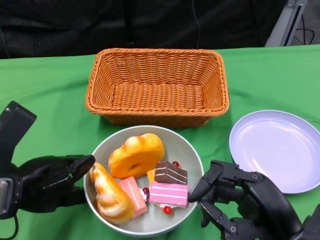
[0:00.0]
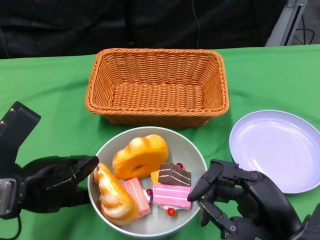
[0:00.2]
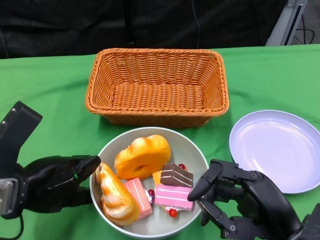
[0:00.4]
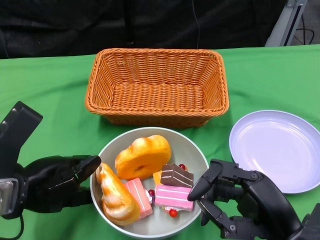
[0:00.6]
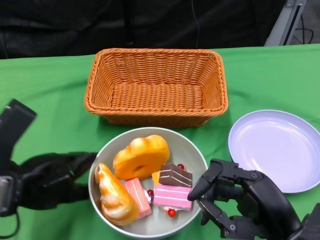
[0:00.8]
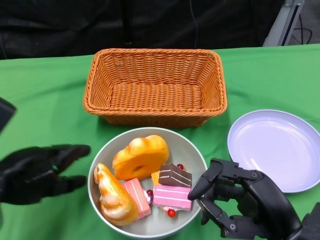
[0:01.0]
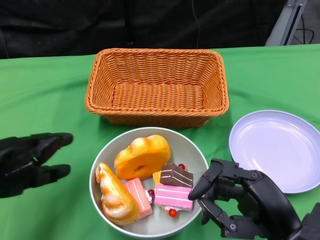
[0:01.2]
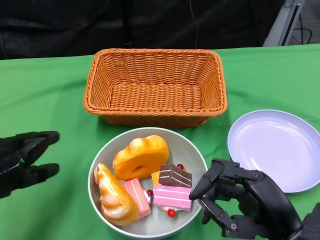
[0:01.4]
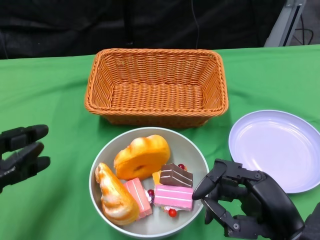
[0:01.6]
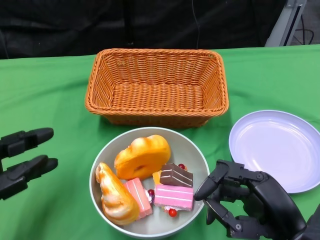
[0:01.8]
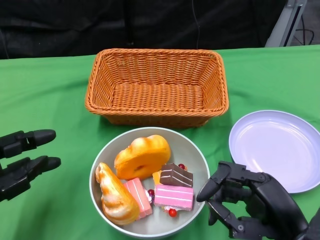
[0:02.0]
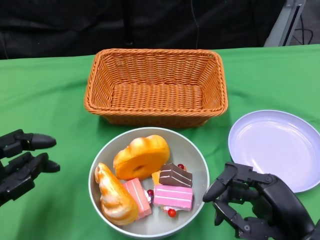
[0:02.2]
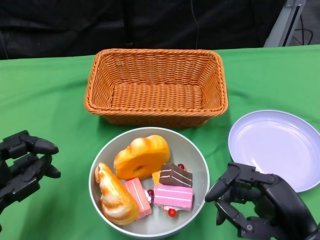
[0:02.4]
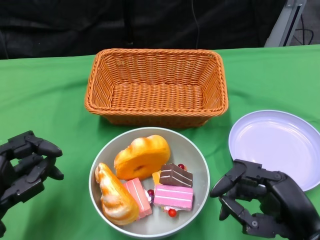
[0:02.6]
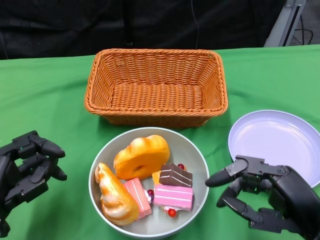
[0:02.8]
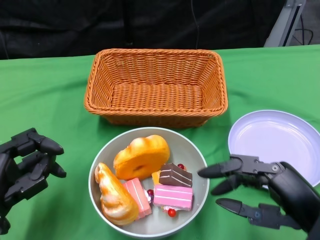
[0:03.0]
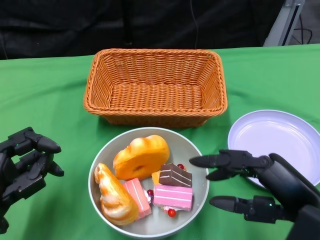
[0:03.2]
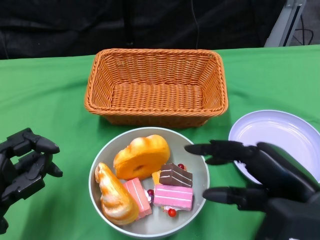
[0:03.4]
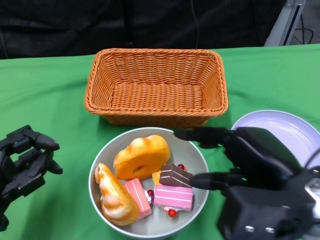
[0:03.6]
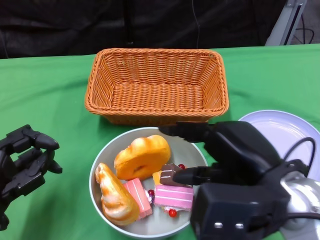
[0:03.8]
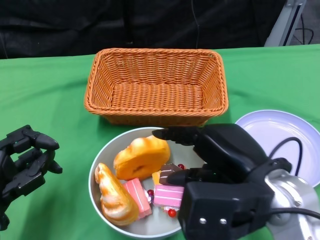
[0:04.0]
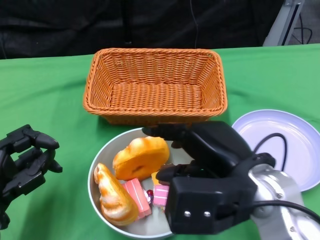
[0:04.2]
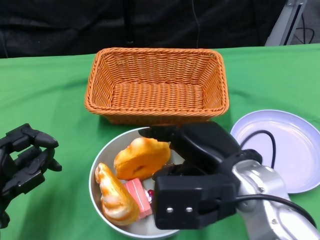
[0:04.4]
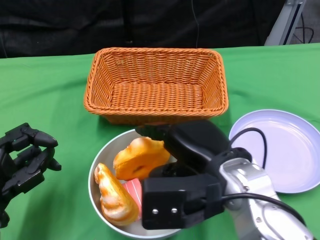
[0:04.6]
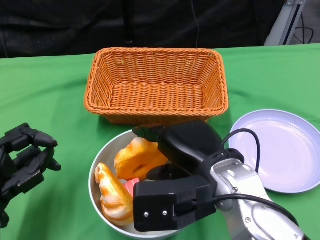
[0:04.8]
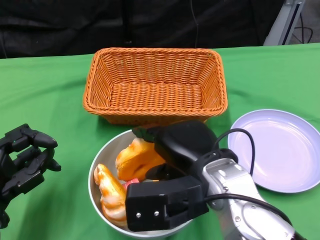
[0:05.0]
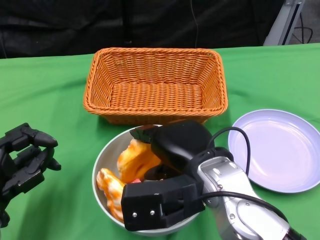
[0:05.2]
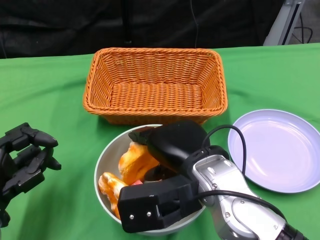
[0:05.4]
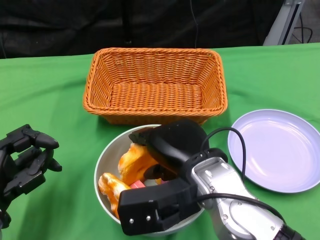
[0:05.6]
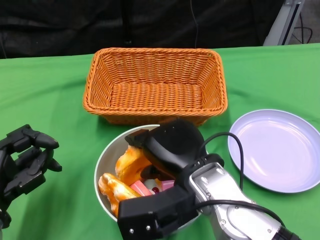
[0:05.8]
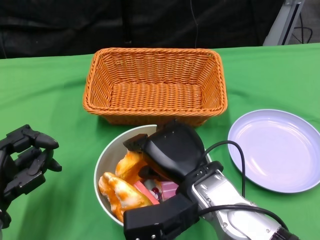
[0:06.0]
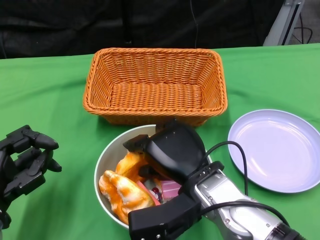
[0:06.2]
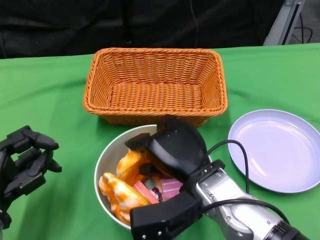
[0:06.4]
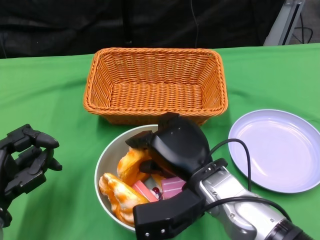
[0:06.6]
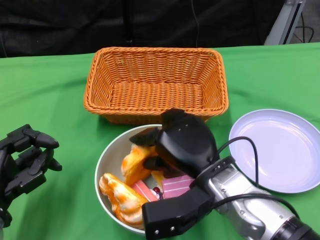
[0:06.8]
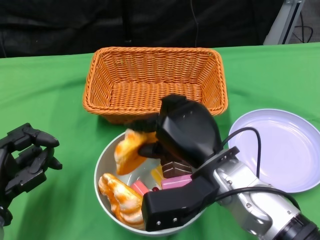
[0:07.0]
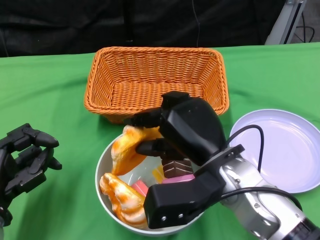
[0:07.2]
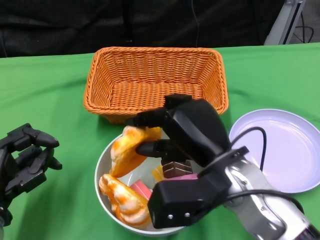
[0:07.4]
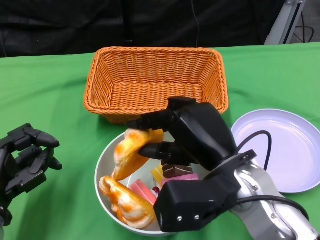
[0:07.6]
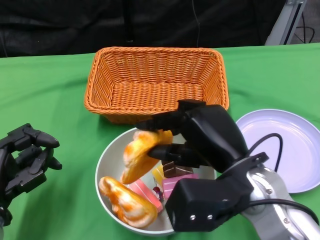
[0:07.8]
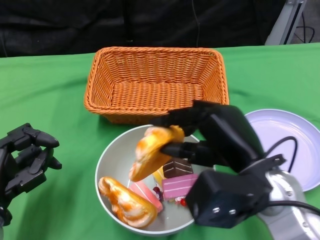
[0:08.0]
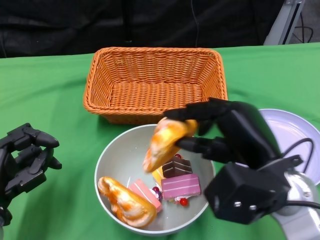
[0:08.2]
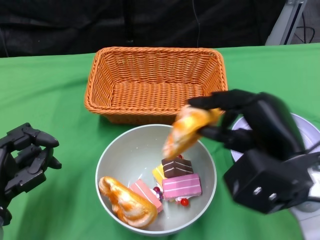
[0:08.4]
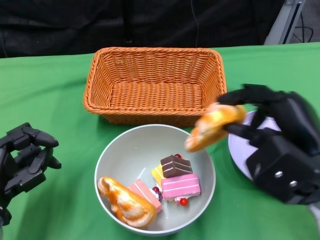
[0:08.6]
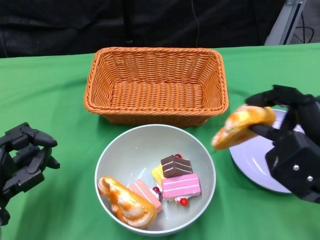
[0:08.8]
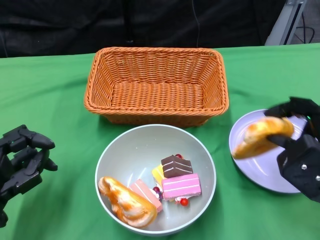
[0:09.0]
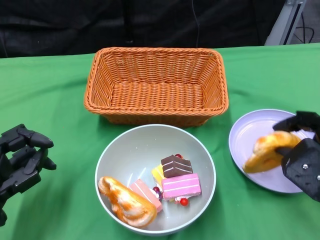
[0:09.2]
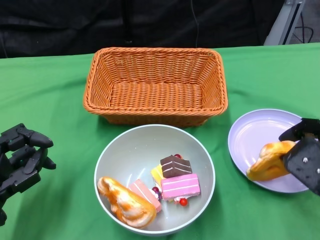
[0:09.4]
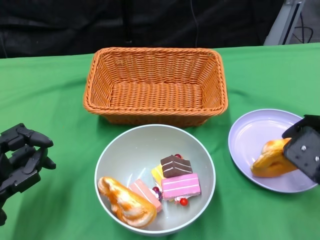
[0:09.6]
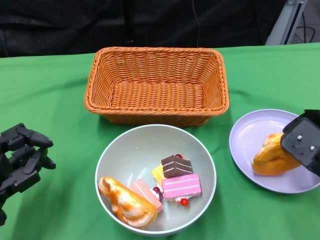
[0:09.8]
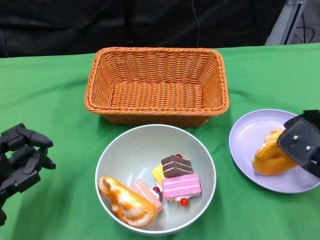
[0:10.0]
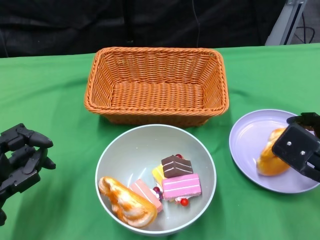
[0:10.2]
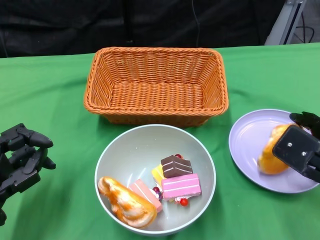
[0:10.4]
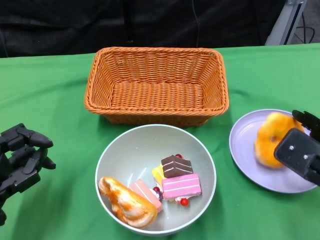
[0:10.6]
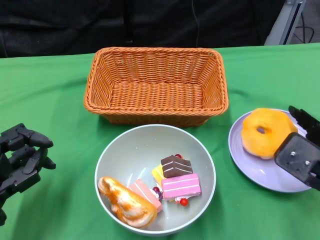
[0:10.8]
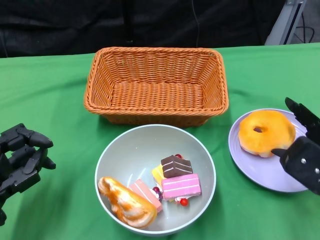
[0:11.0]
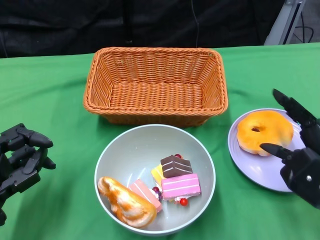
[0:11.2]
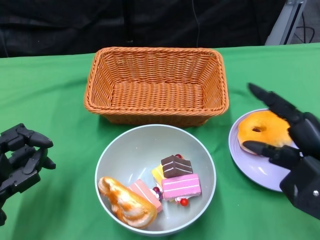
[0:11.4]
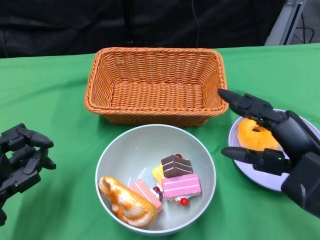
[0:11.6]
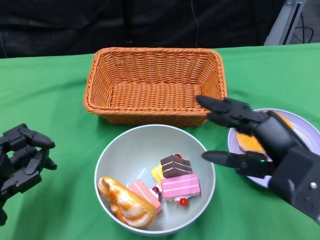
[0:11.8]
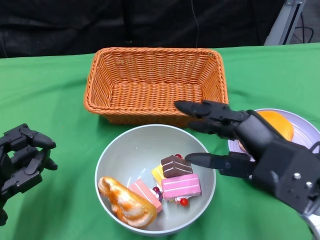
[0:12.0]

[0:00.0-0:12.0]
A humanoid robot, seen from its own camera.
0:00.0 to 0:01.6: The left hand shifts approximately 5 cm to the left.
0:01.6 to 0:03.0: The left hand moves downward, some 5 cm.
0:03.0 to 0:04.4: The right hand travels to the left and forward by some 15 cm.
0:04.4 to 0:06.0: The right hand is displaced to the left by some 5 cm.
0:06.0 to 0:07.6: The right hand changes place by about 5 cm.
0:07.6 to 0:09.0: The right hand travels to the right by approximately 15 cm.
0:10.4 to 0:12.0: The right hand heads to the left and upward, covering about 10 cm.

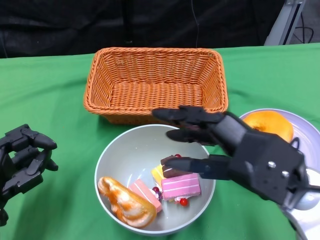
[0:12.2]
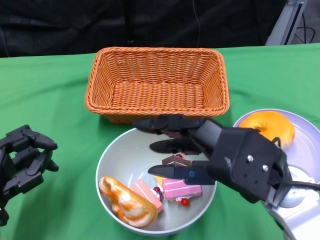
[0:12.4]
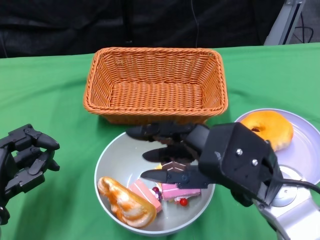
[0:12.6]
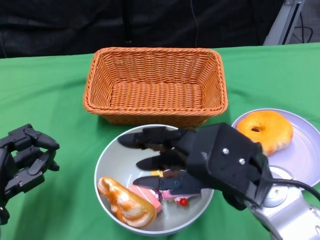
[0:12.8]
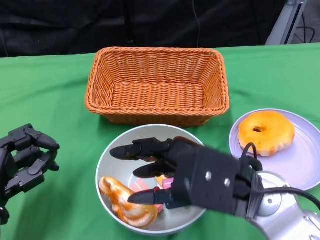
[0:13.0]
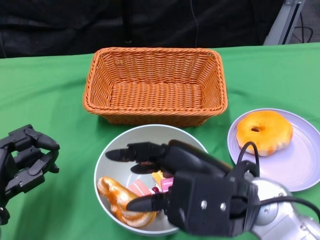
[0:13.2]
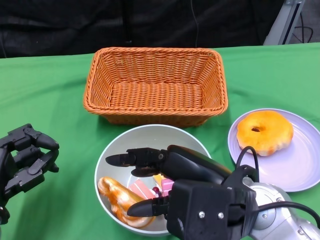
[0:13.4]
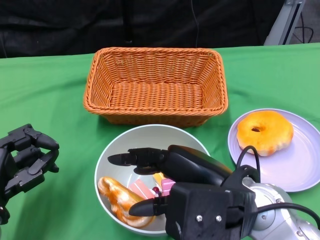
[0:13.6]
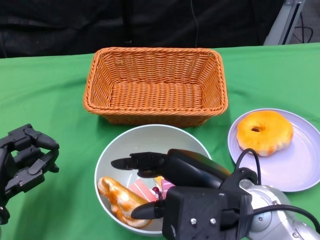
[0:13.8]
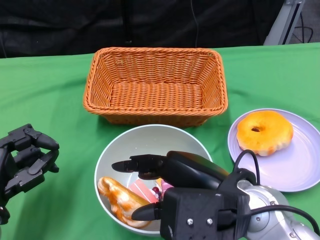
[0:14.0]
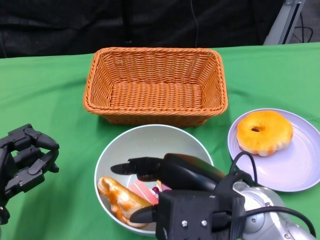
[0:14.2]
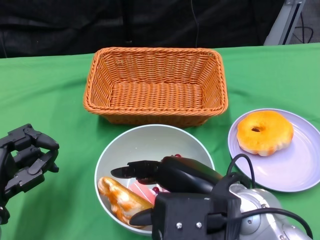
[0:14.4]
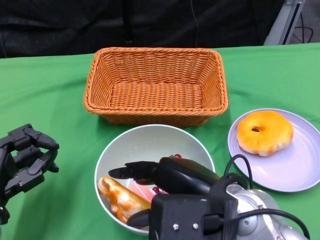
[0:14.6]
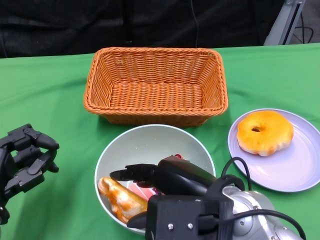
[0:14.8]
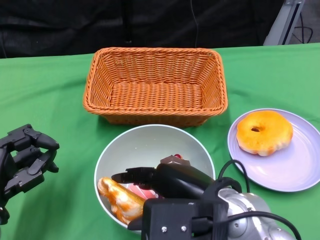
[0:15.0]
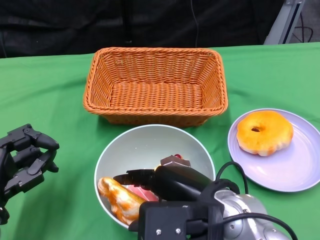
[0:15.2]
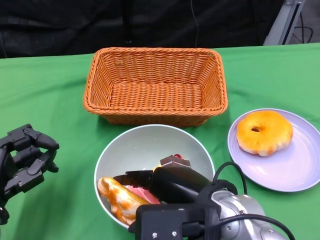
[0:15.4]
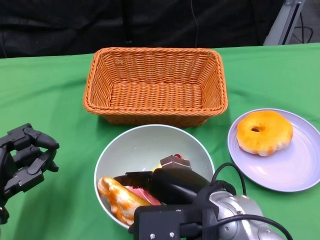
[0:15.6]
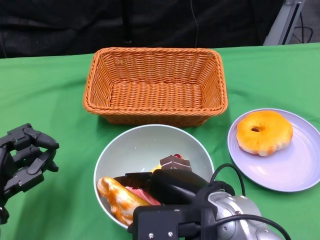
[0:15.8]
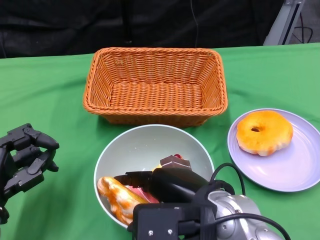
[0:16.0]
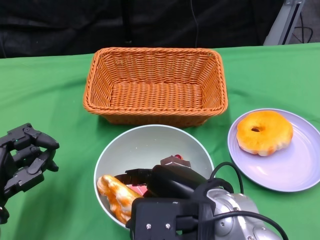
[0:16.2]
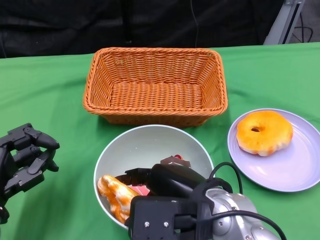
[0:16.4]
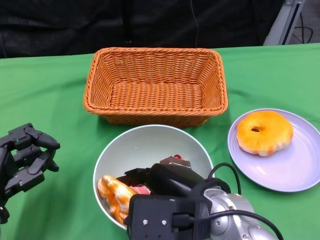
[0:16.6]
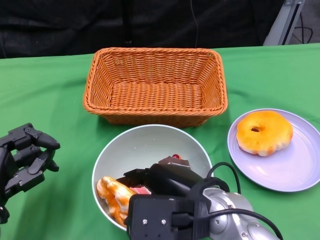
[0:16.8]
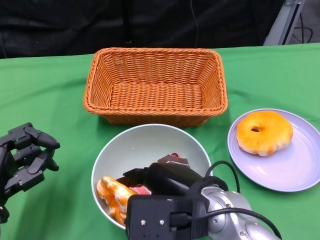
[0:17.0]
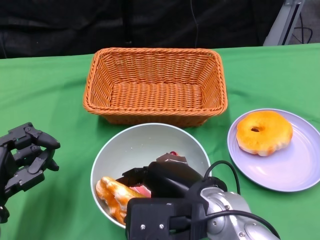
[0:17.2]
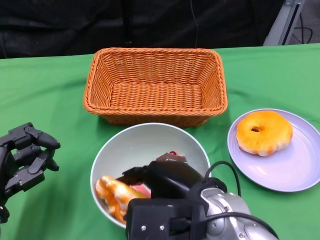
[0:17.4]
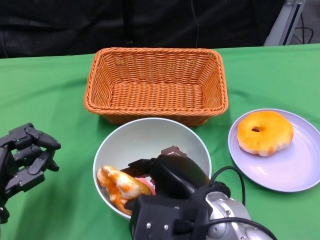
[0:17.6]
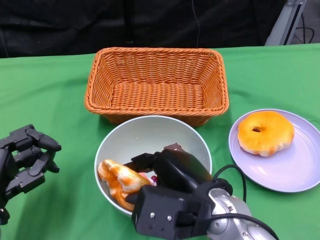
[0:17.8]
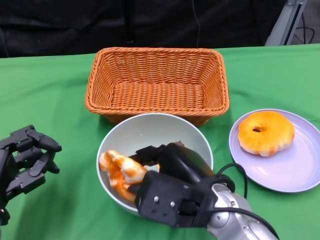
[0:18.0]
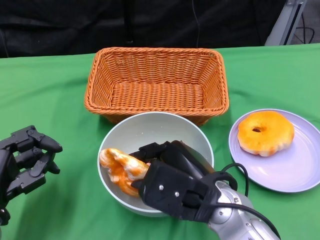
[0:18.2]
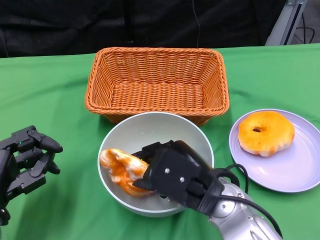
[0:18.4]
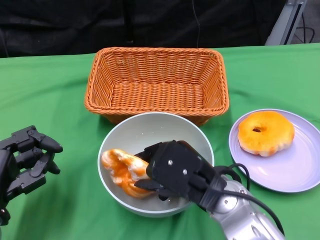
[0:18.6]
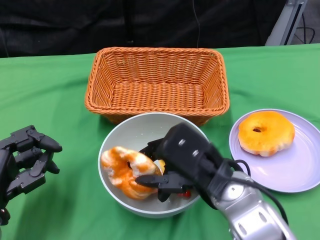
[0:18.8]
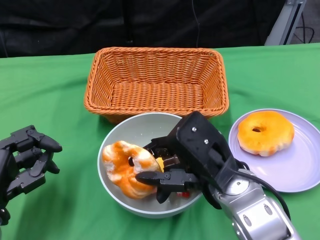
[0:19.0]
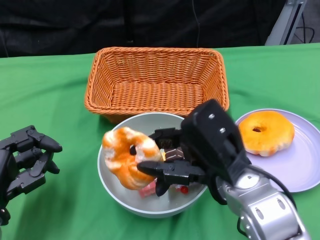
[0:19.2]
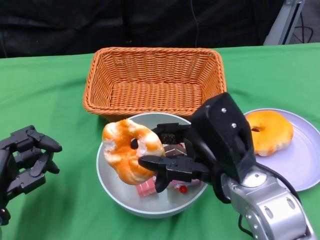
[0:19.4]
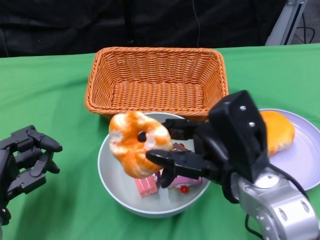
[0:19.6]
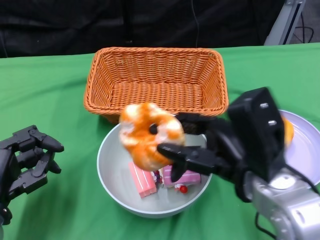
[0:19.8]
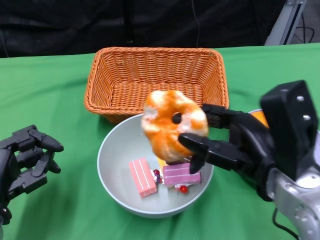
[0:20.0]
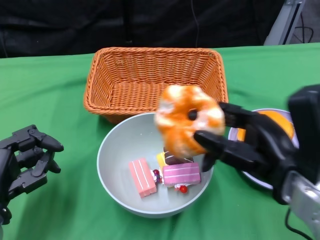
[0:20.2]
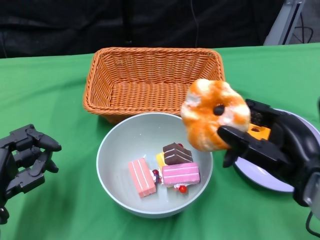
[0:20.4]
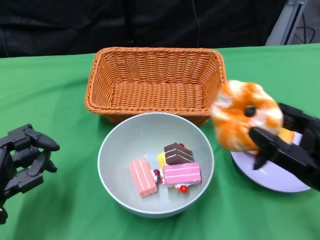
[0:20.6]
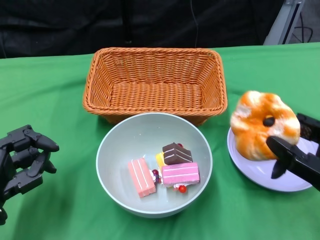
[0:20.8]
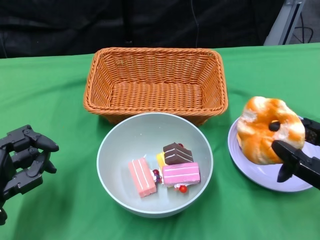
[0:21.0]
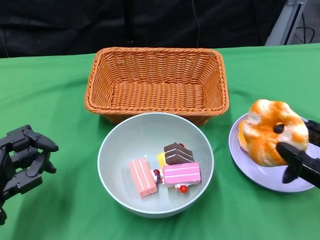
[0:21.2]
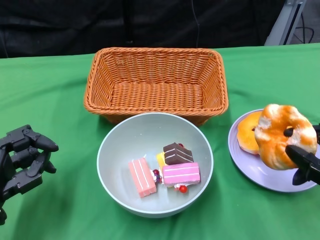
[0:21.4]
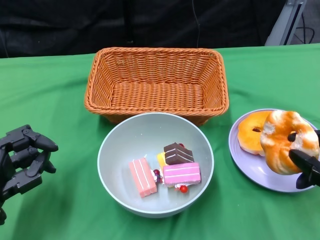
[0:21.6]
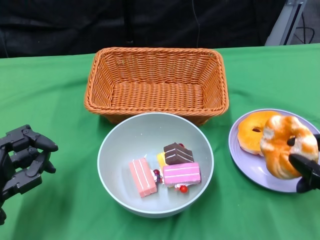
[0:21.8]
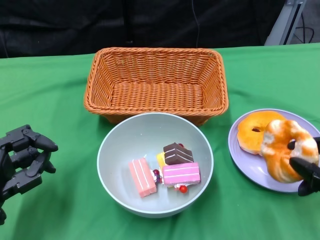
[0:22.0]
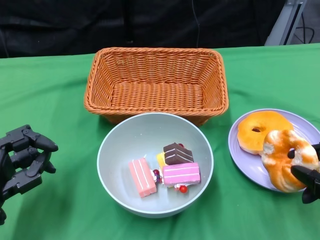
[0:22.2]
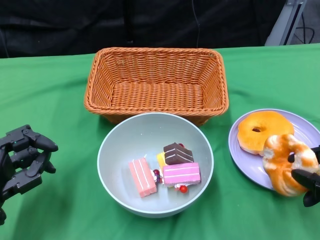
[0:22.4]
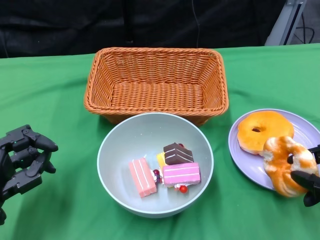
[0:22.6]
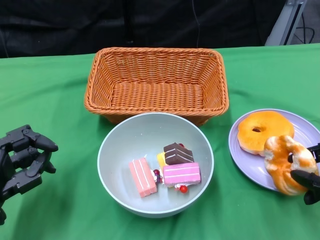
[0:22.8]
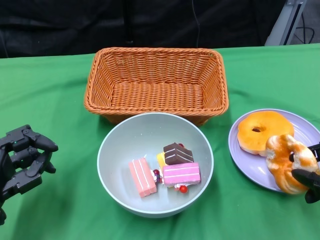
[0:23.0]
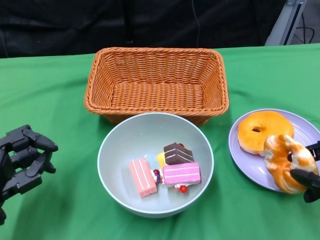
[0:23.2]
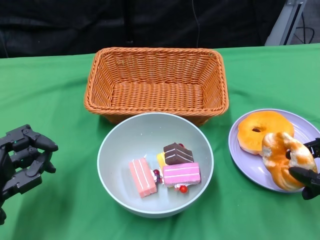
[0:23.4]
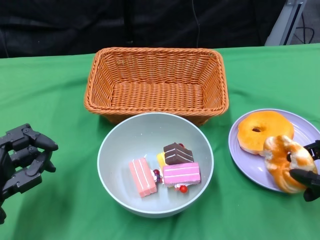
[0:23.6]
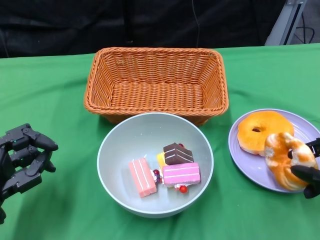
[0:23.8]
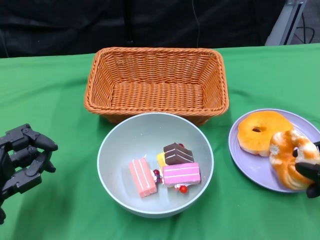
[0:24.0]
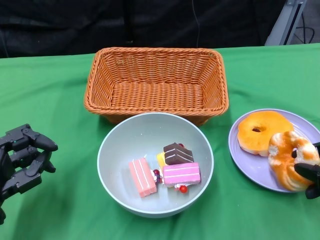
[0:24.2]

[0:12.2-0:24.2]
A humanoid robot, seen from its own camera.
0:12.2 to 0:13.8: The right hand goes roughly 5 cm to the left.
0:13.8 to 0:16.6: The hands move only a little.
0:18.2 to 0:19.8: The right hand is displaced to the right by roughly 5 cm.
0:19.8 to 0:21.2: The right hand moves to the right, approximately 15 cm.
0:22.6 to 0:24.2: The hands stay close to where they were, moving slightly.
